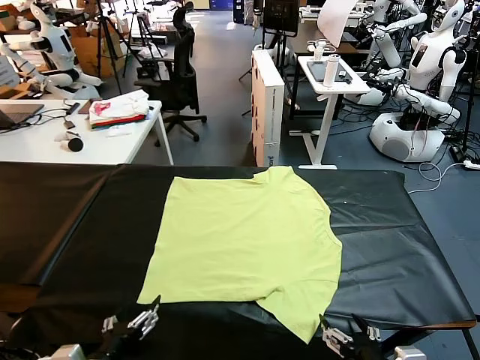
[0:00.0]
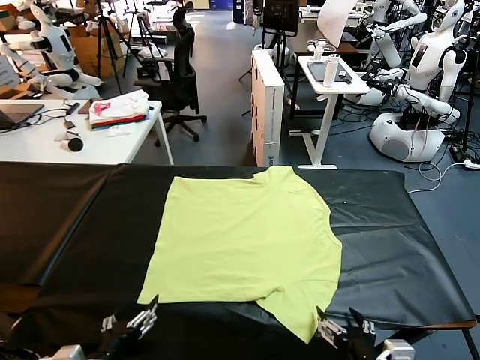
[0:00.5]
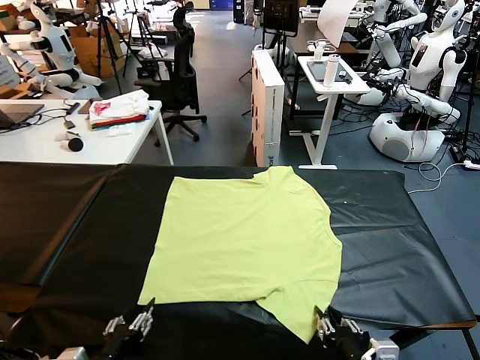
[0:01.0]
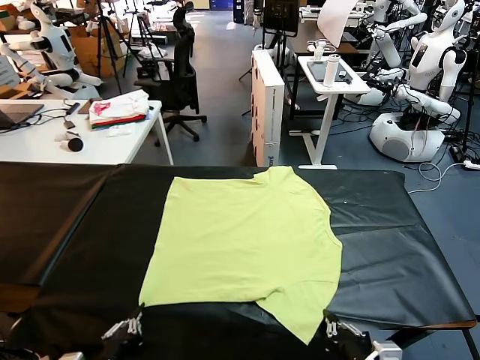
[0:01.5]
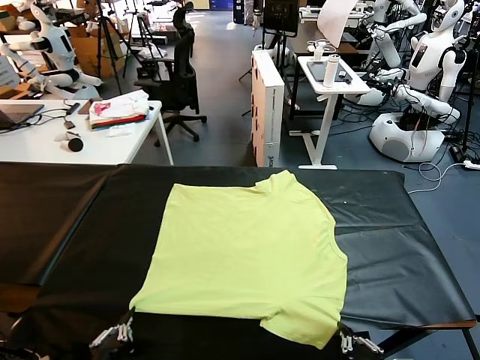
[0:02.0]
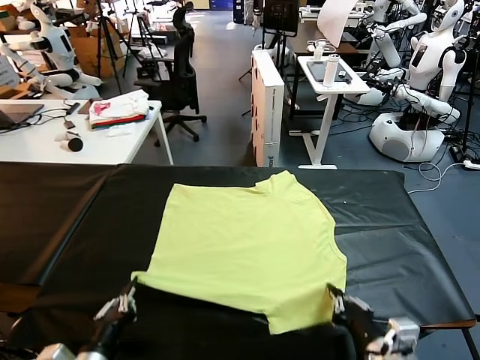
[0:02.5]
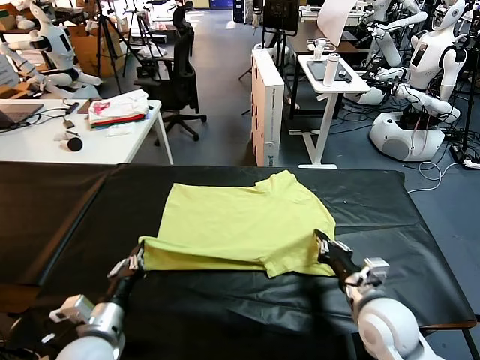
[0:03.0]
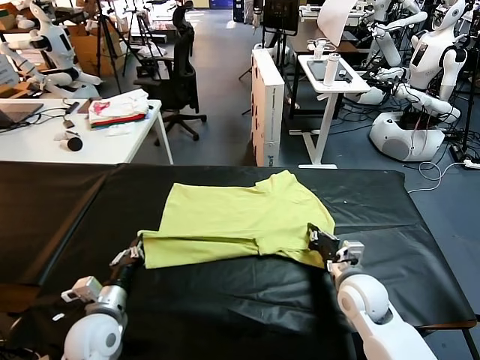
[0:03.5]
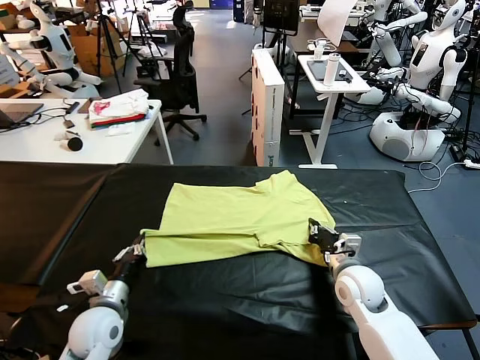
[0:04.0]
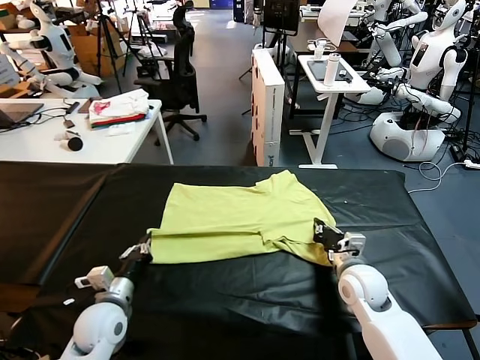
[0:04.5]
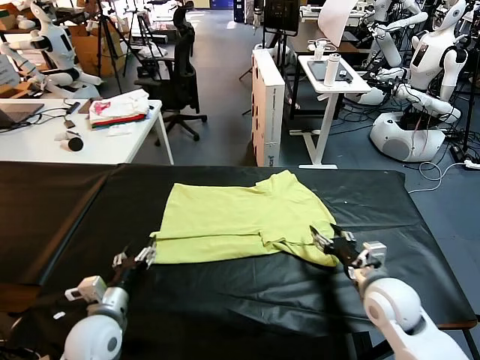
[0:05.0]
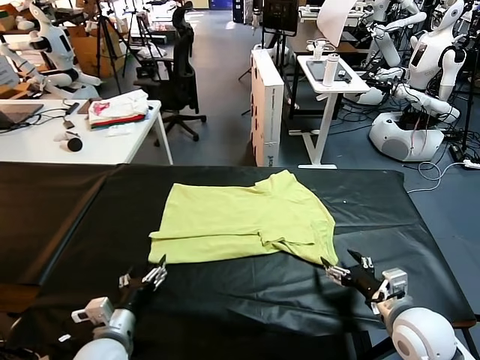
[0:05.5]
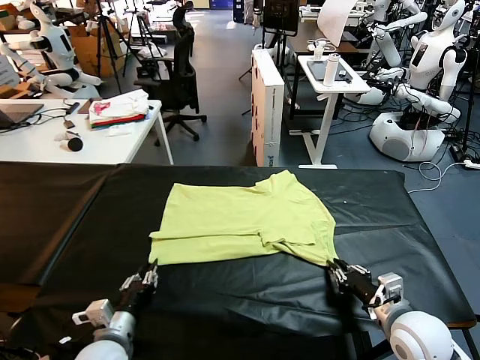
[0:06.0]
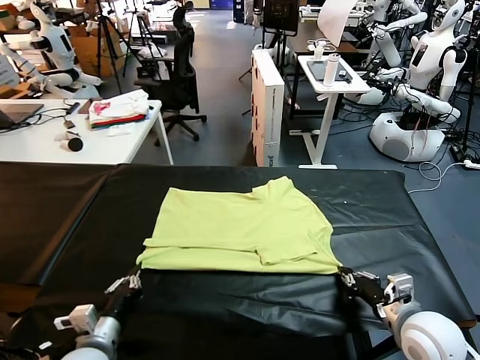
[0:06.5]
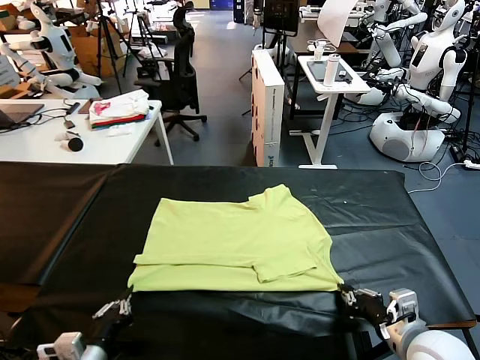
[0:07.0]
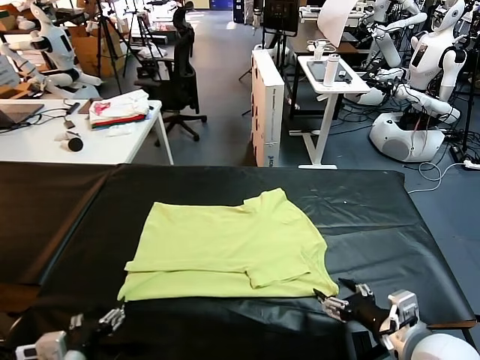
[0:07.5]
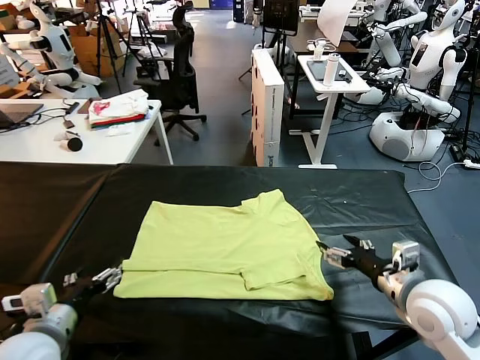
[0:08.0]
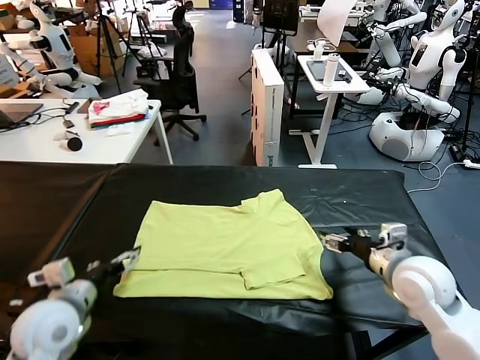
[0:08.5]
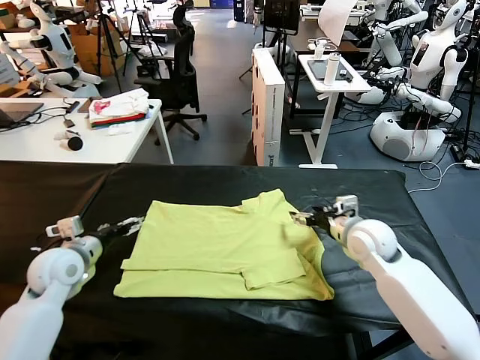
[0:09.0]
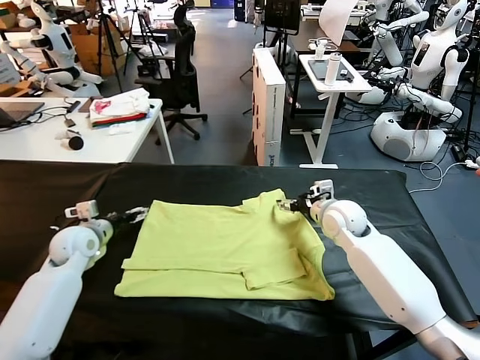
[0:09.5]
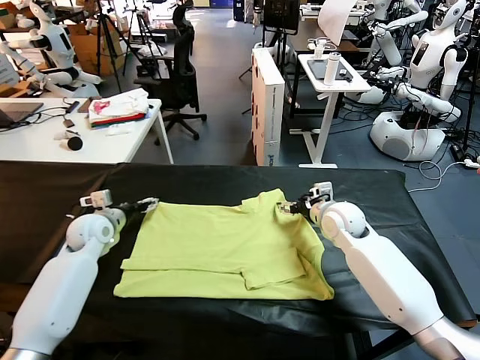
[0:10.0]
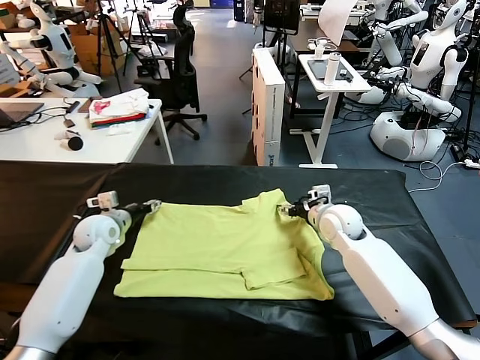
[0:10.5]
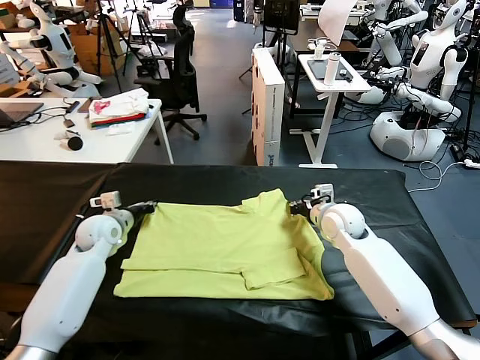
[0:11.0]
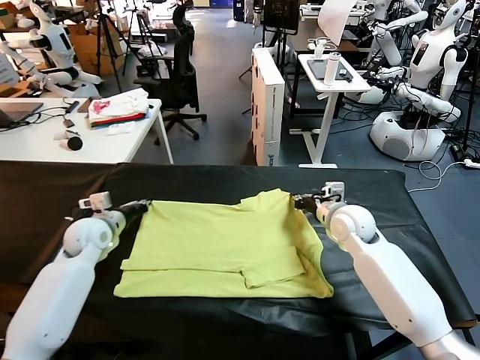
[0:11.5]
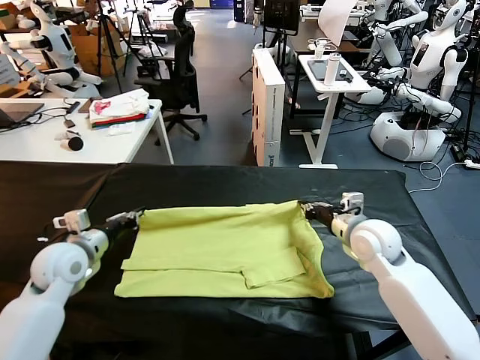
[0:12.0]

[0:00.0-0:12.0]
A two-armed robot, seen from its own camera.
Task of the whole recording: fold and organize the clothes.
Step, 0.0 to 1.5 s: use both grippers simultaneously to clamp the lower edge of the clothing fabric.
Step, 2.0 to 5.0 s: use both grippers to drag the lower edge of the fabric forward and fold it over the upper edge.
Step, 5.5 to 7.0 s: Drag the clothes downward with both gripper.
Step, 8.0 to 11.0 s: use both grippers simultaneously to clamp the upper edge of the clothing fabric.
2.0 to 4.0 s: The two grippers go about 25 cm forward.
4.0 to 6.0 s: The right gripper travels backward and to the right by roughly 15 cm, and opens and closes again, while the left gripper heads backward, covering roughly 5 cm, and opens and closes again.
6.0 to 8.0 s: The left gripper shifts approximately 15 cm upward and to the left, and opens up, while the right gripper goes roughly 10 cm upward, and opens.
8.0 to 10.0 s: The left gripper travels forward by some 30 cm. The right gripper heads forward and to the left, covering approximately 25 cm.
10.0 to 12.0 s: Both grippers travel together backward, roughly 10 cm. The right gripper closes up. The left gripper closes.

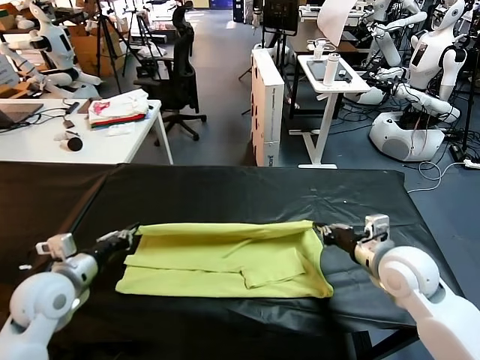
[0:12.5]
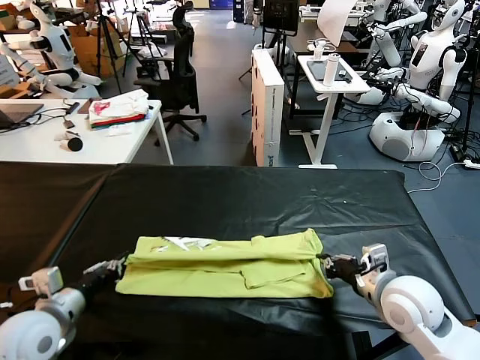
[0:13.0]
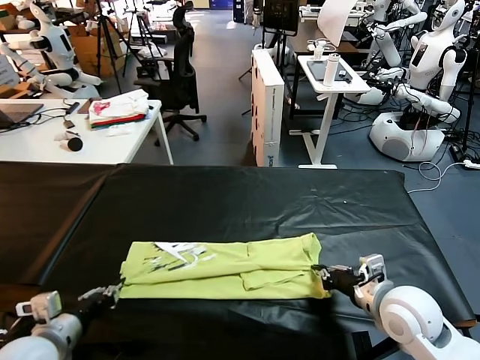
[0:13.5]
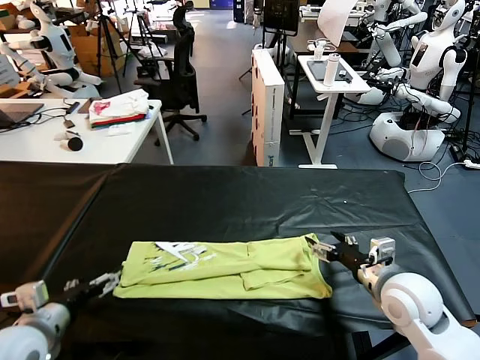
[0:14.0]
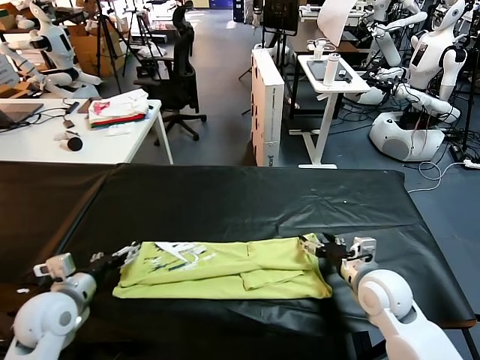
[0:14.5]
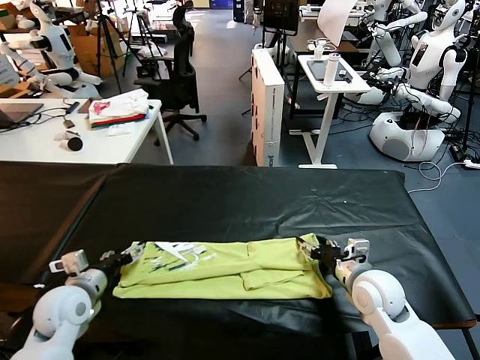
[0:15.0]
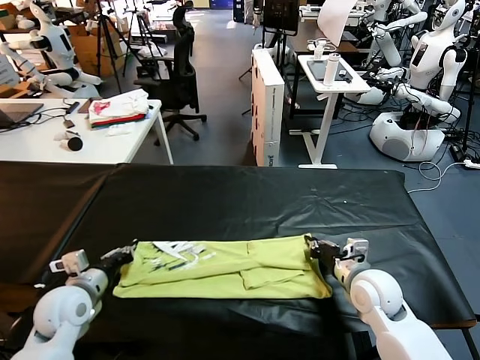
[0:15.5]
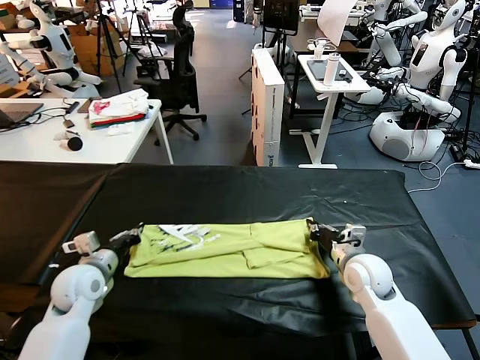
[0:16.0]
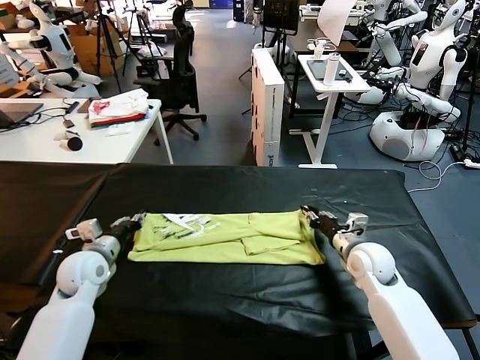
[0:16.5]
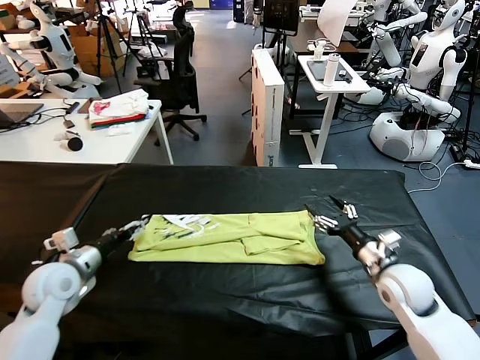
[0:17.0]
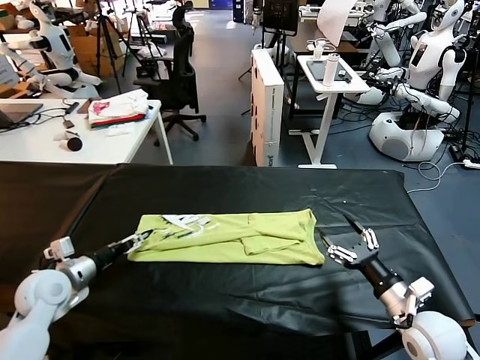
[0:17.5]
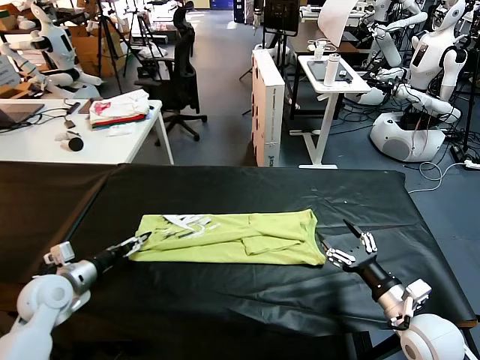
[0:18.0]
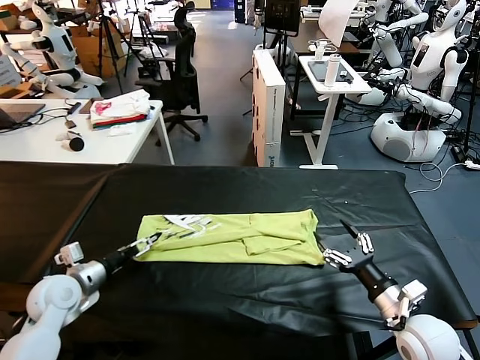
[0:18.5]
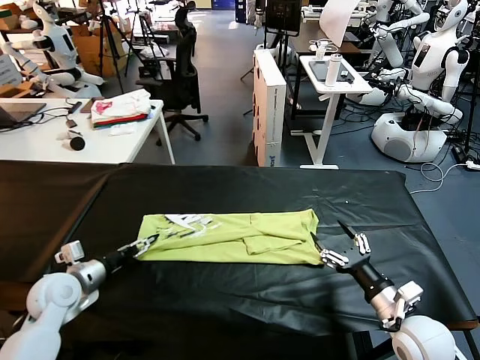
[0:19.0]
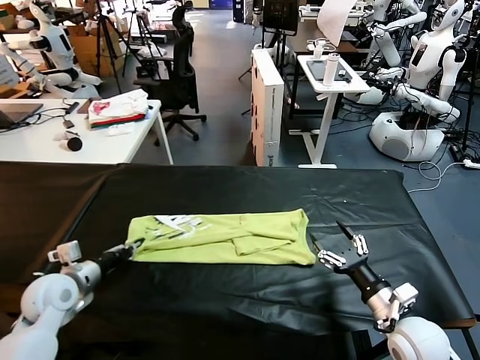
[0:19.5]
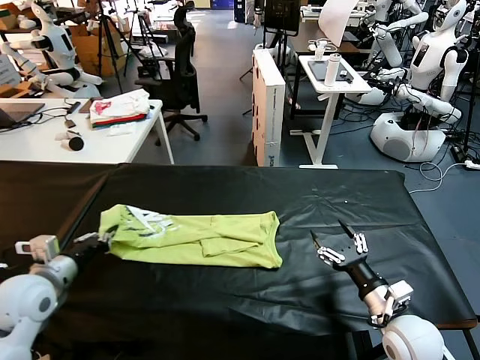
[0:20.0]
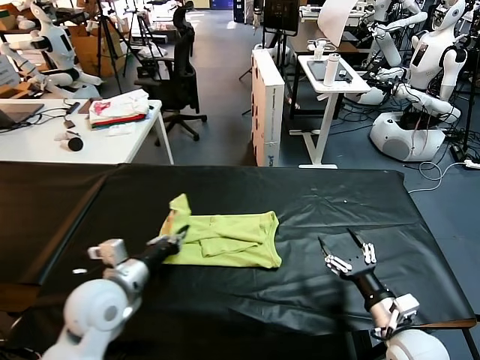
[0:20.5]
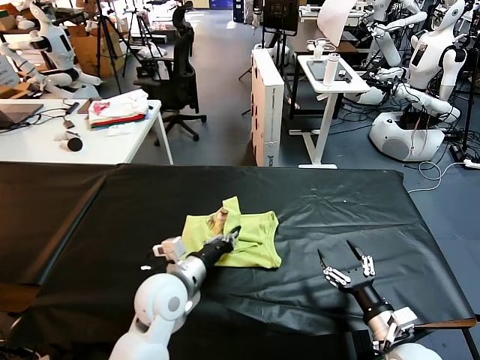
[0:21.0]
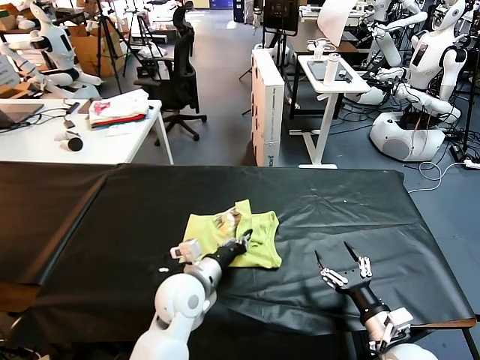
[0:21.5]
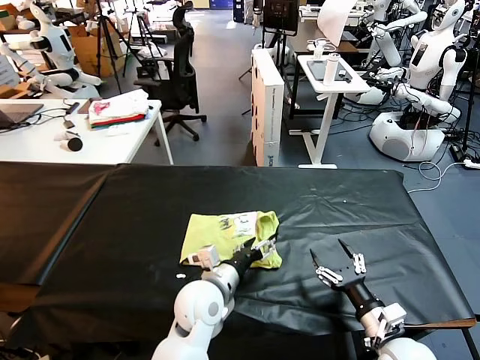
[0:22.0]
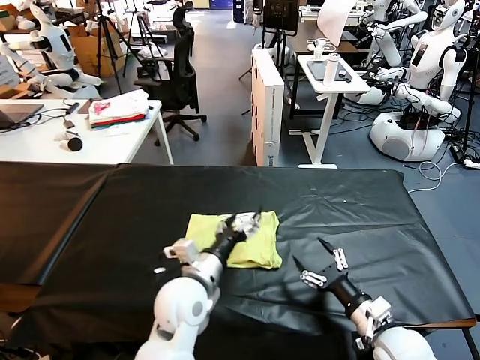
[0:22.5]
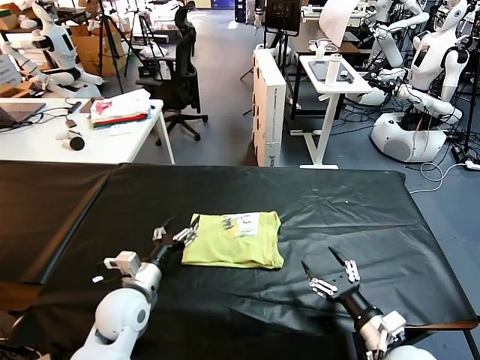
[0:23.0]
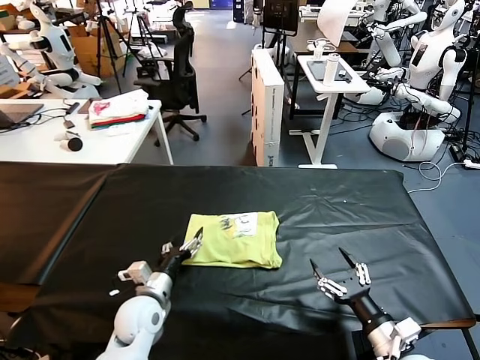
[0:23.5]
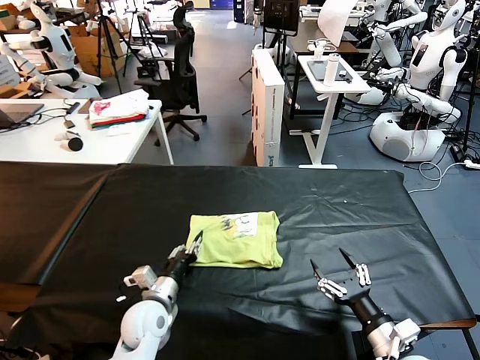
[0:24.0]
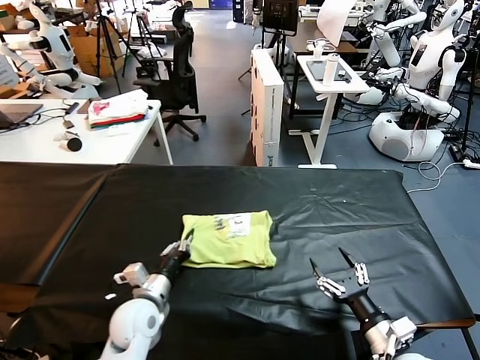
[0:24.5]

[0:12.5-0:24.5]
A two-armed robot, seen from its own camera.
Task of the whole recording: fold and organize the clothes.
Step, 14.0 to 19.0 s: use the left gripper to clamp the left edge of the fabric.
Step, 19.5 to 22.0 s: use the left gripper to drag the left edge of the fabric to the left and folds it over the right edge.
12.5 to 14.5 s: The left gripper goes backward and returns, approximately 10 cm each way, and opens its fingers; the right gripper travels downward by roughly 5 cm, and opens its fingers.
14.5 to 16.5 s: Both grippers travel together forward, some 10 cm. The right gripper closes and opens again. The left gripper closes.
16.5 to 18.5 s: The right gripper heads backward, covering some 15 cm. Meanwhile the left gripper is displaced backward by some 5 cm, and opens.
18.5 to 20.5 s: The left gripper shifts some 15 cm to the right and upward, and closes up.
20.5 to 22.5 s: The left gripper is displaced to the right by about 15 cm, and opens.
22.5 to 24.5 s: The left gripper travels to the left and downward by roughly 15 cm, and closes its fingers.

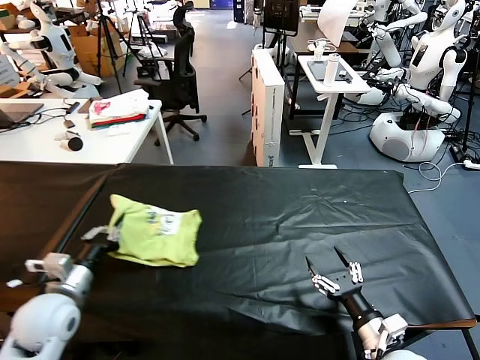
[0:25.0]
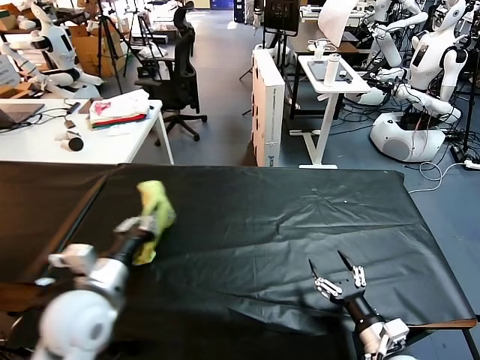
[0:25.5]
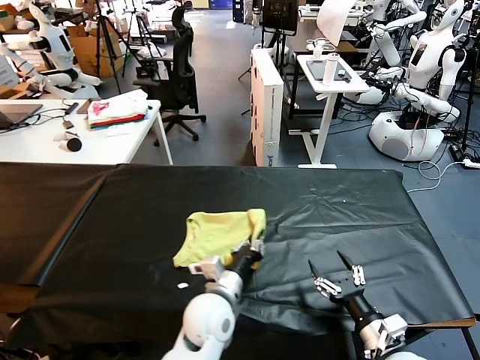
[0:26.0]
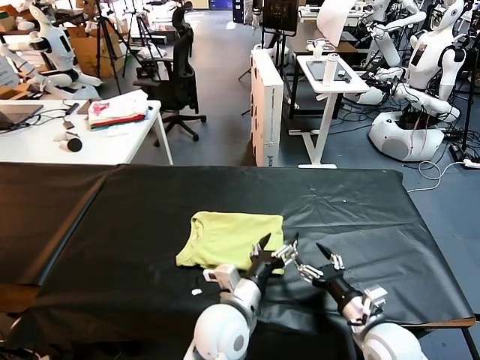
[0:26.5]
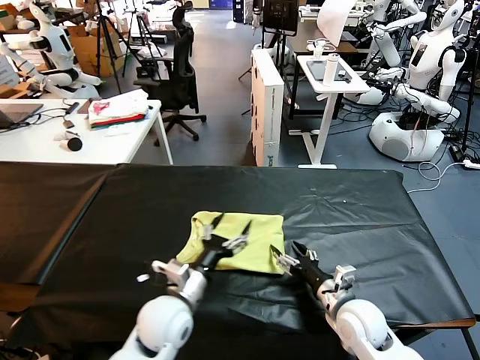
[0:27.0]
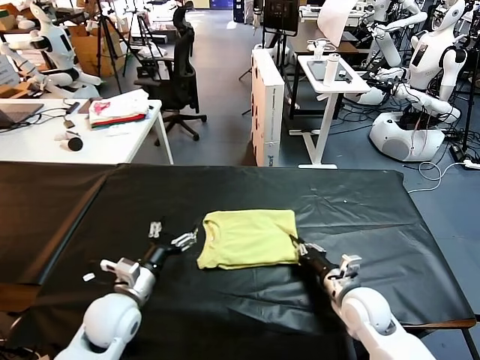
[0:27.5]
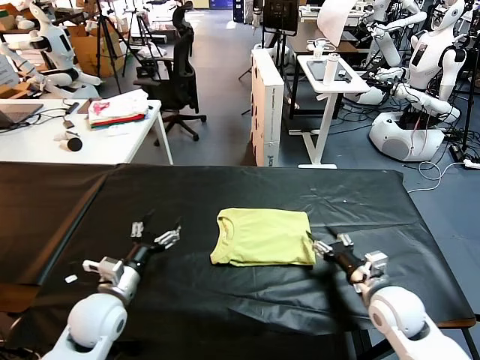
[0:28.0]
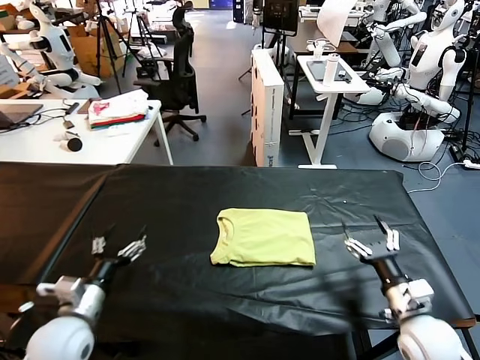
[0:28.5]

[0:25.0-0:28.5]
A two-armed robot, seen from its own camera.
Task of the whole recording: fold and organize the clothes.
Step, 26.5 to 27.5 s: Drag the clothes to the center of the table.
25.0 to 27.0 s: The right gripper goes roughly 10 cm forward and to the left. The left gripper moves to the right, about 20 cm, and opens.
27.0 to 28.5 s: The right gripper is displaced to the right by about 10 cm, and closes, then opens again. Meanwhile the left gripper heads to the left, covering approximately 20 cm.
